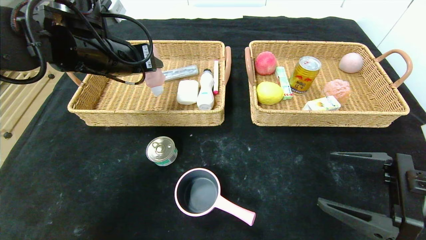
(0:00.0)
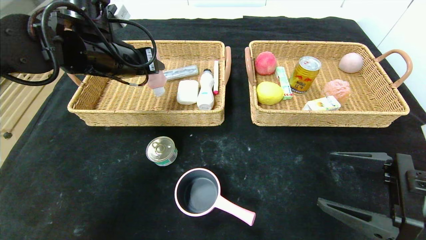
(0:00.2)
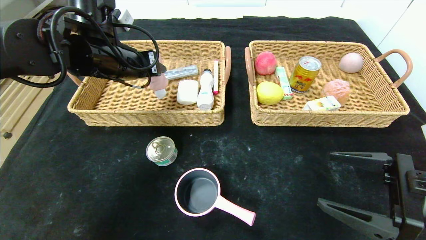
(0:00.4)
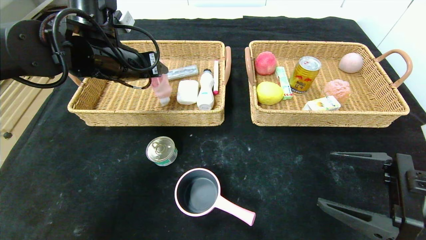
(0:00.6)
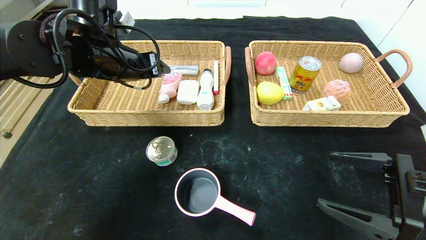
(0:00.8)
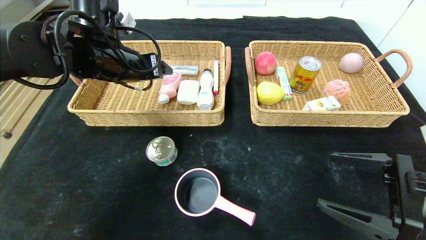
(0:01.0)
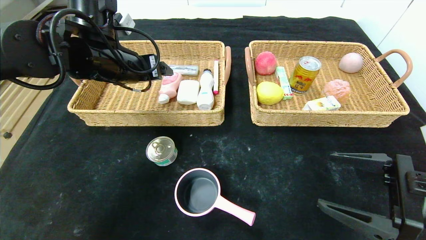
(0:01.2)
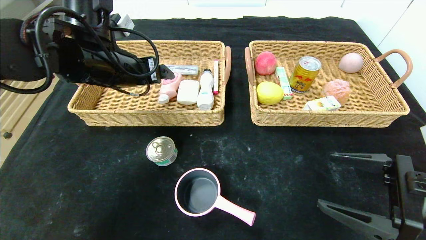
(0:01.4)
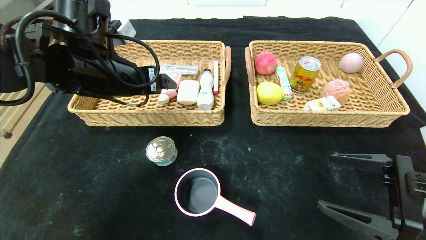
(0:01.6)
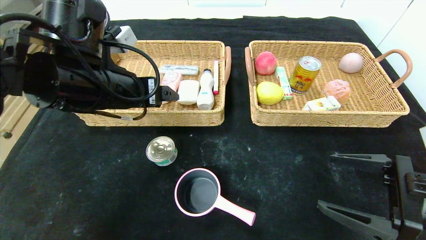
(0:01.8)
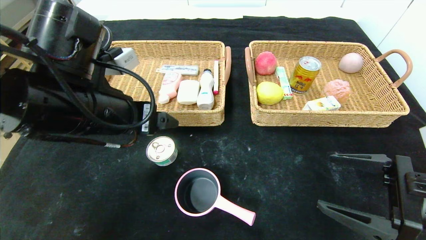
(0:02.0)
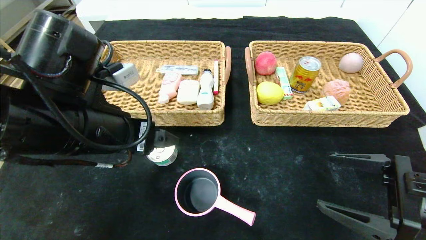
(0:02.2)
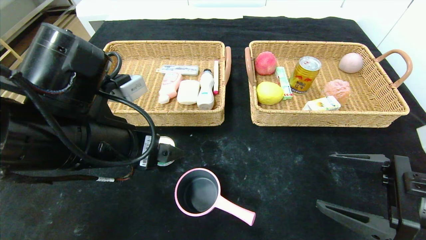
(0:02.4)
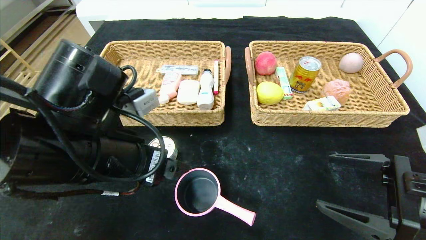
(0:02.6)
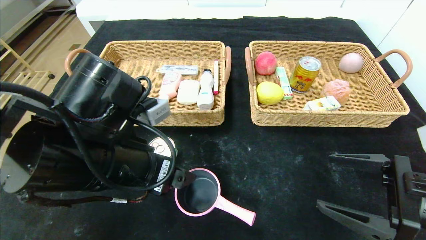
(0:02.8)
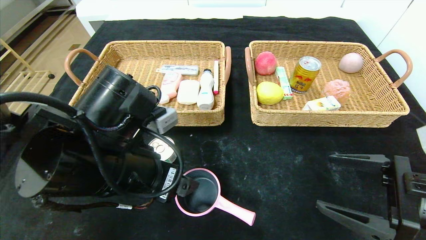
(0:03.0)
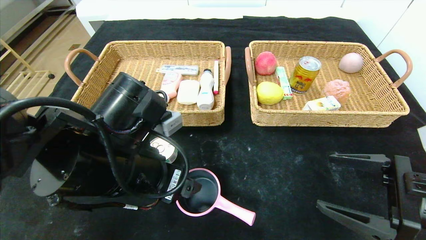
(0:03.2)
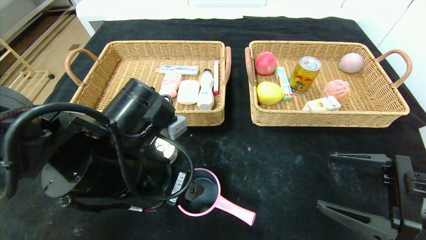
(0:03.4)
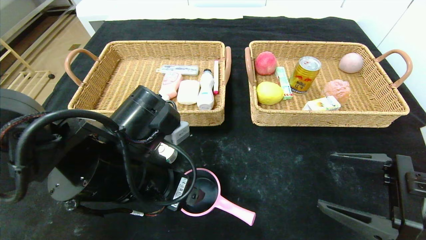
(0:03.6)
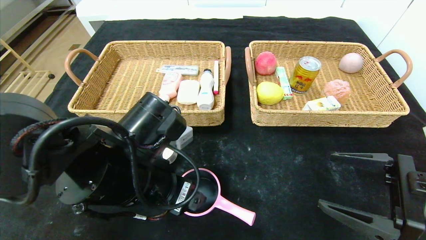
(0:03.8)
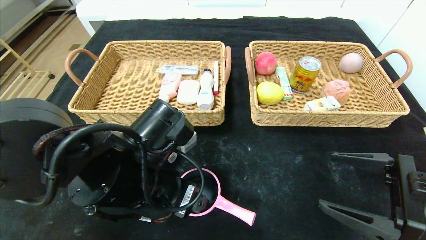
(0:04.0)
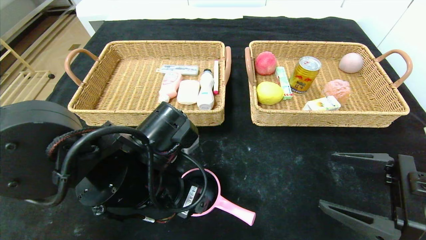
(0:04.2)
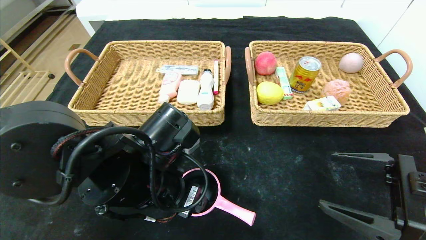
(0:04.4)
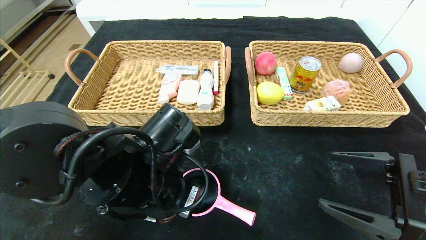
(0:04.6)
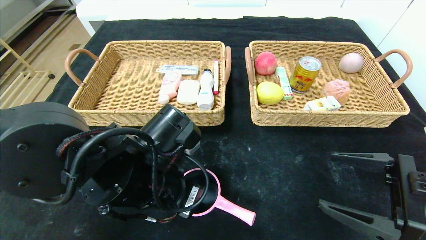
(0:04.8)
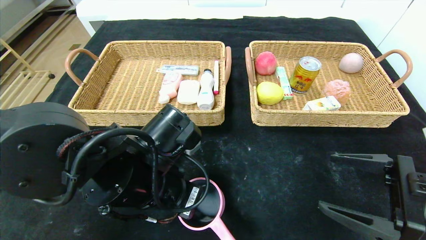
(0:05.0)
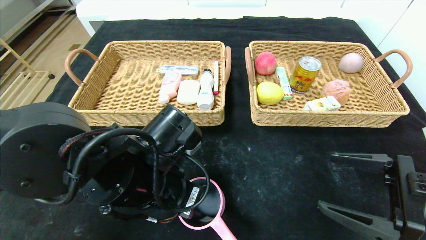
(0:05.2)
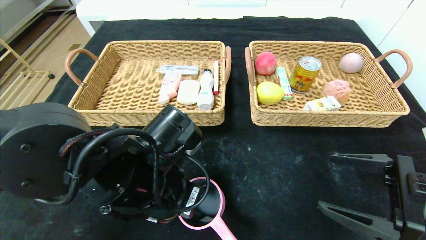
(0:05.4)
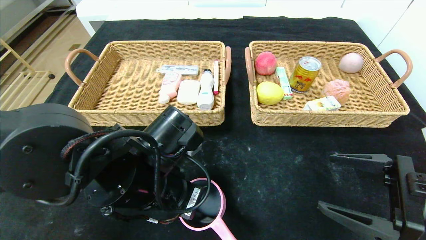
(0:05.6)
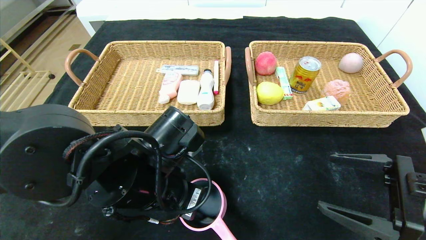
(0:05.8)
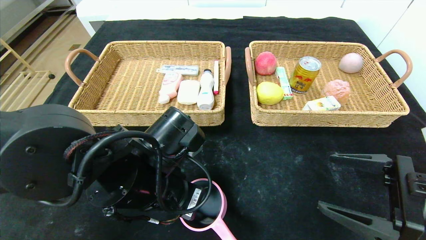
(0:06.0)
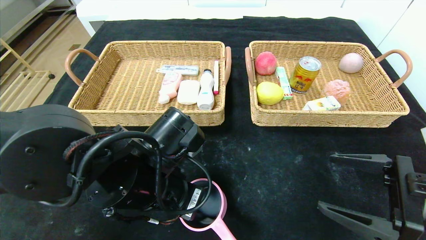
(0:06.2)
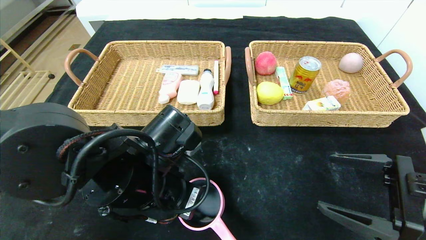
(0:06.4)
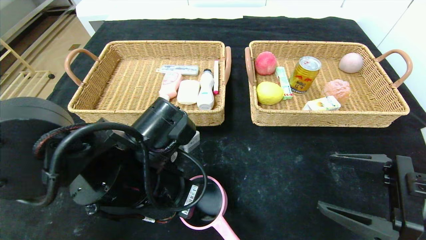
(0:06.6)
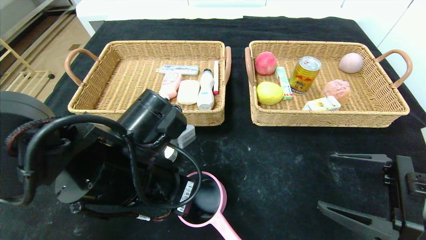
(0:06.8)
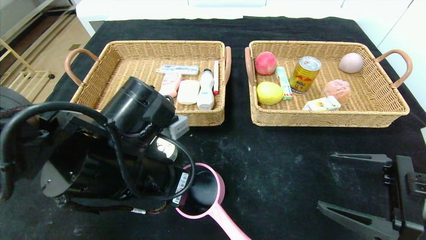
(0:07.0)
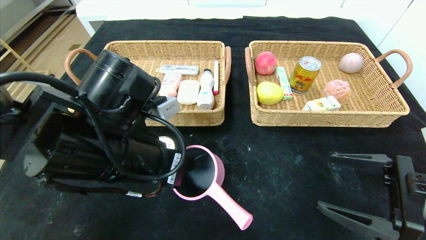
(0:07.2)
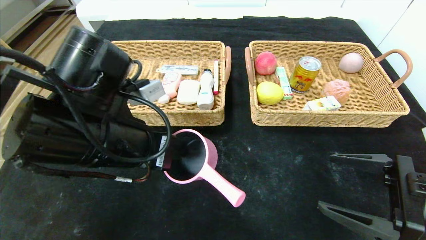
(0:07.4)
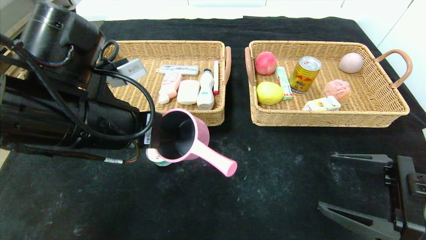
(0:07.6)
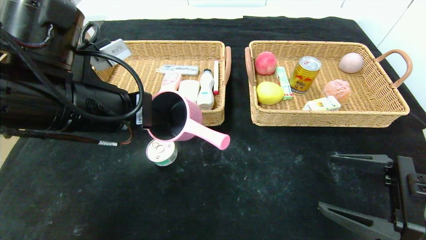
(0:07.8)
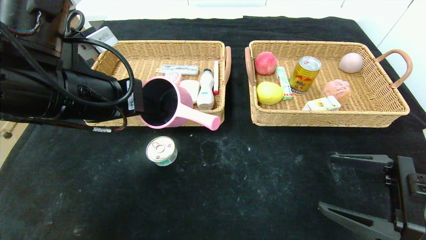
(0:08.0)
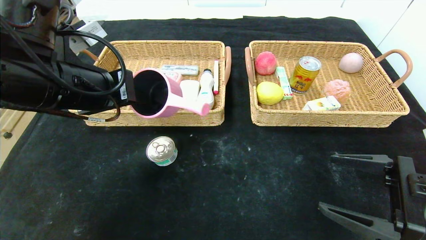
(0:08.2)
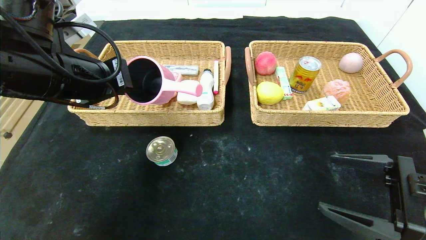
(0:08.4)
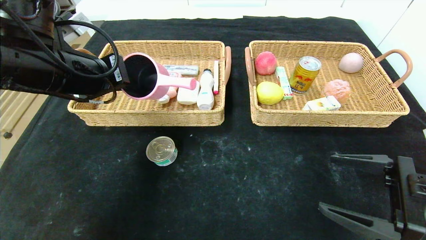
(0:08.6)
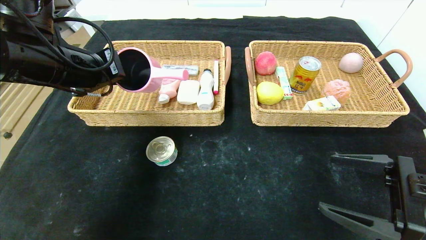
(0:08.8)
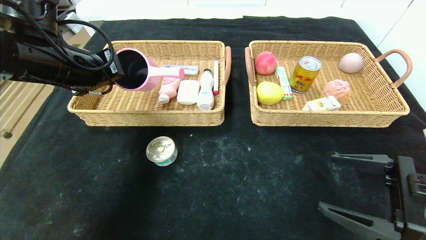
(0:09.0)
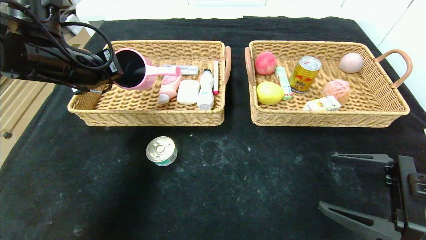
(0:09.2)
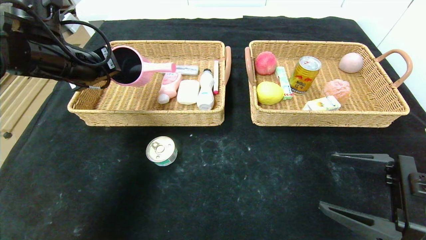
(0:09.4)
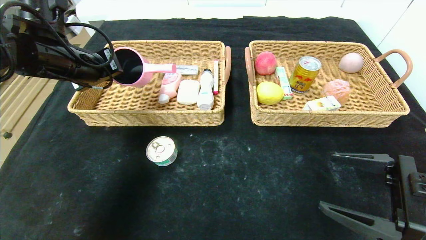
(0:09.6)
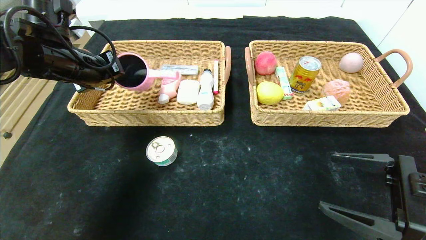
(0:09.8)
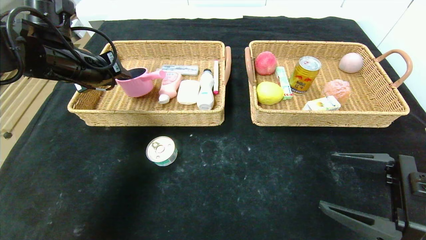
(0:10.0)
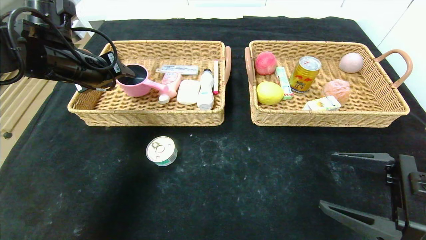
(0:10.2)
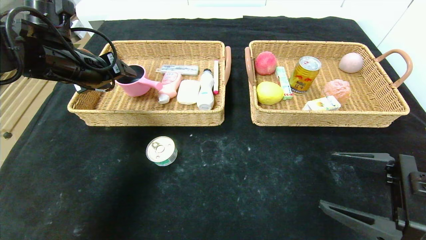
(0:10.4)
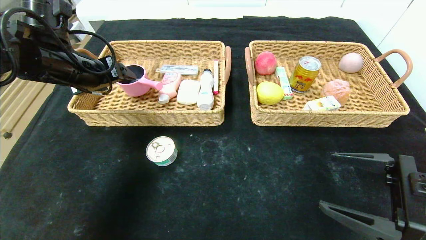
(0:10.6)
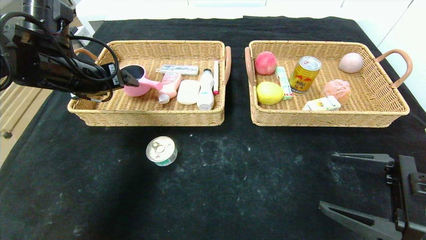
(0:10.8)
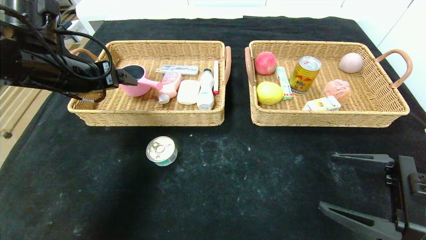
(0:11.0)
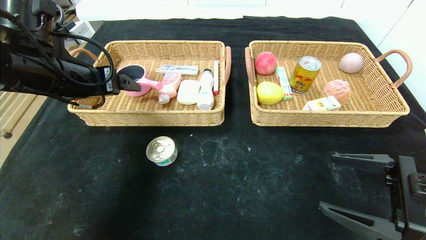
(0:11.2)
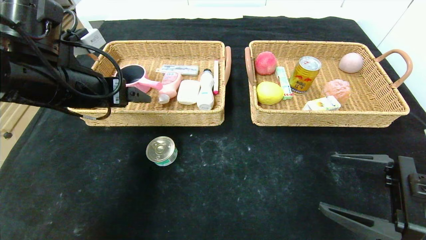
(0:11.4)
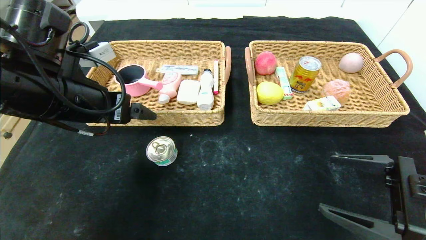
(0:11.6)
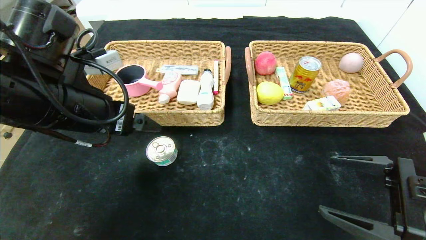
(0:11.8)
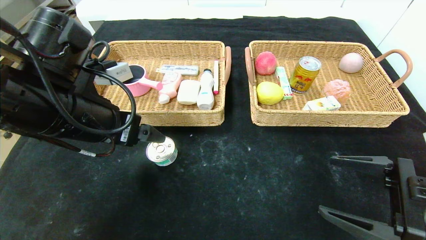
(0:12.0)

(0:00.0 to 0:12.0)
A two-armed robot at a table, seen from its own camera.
Step, 0:00.8 - 0:10.4: Grasp the pink pot and put it in the left basket.
0:00.0 - 0:01.6: The left gripper opens its fingers.
0:01.6 - 0:03.0: The left gripper goes some 15 cm backward and downward.
0:03.0 - 0:04.4: The grippers make only small movements.
0:04.4 - 0:06.0: The left gripper closes.
0:06.0 - 0:07.6: The left gripper heads upward and to the left, covering approximately 10 cm.
0:07.6 - 0:09.0: The left gripper travels forward and to the left by approximately 10 cm.
0:09.0 - 0:10.4: The left gripper opens up.
0:10.4 - 0:12.0: The left gripper goes approximately 15 cm backward and to the right.

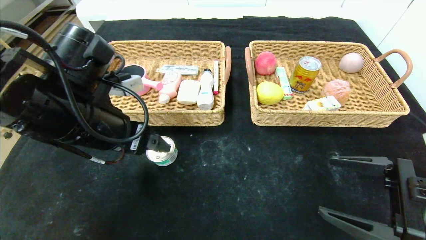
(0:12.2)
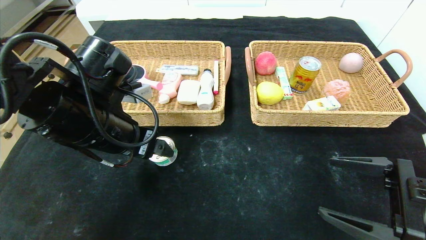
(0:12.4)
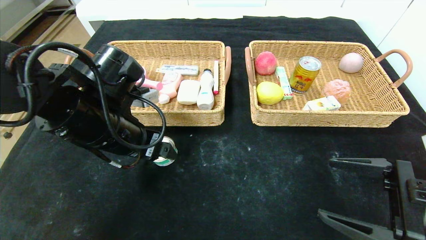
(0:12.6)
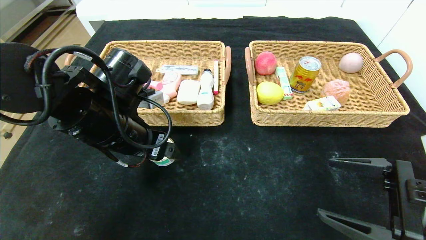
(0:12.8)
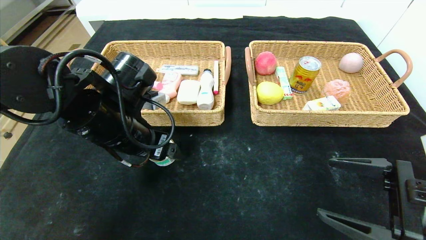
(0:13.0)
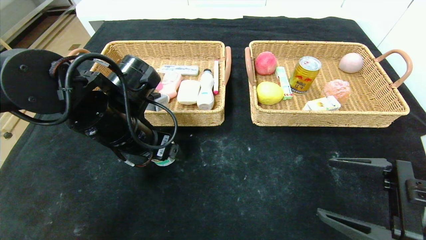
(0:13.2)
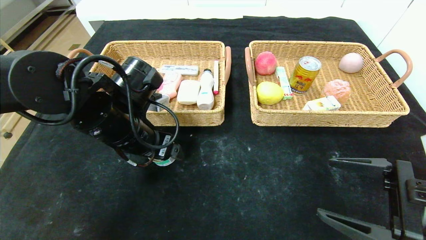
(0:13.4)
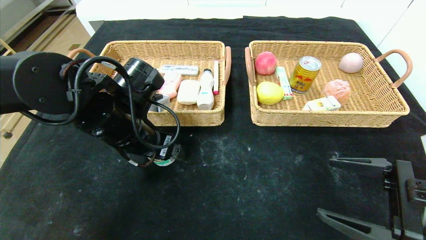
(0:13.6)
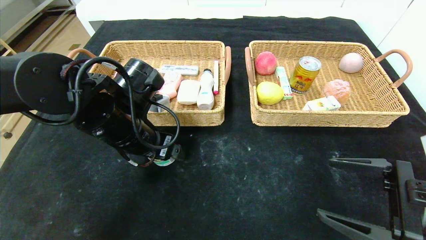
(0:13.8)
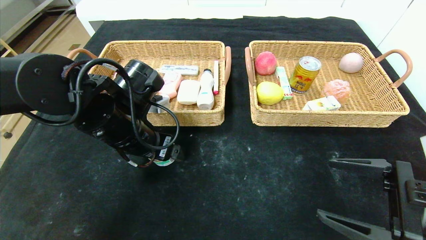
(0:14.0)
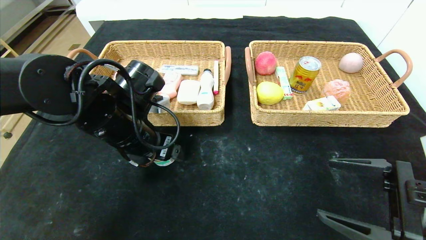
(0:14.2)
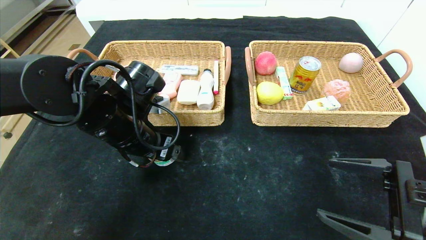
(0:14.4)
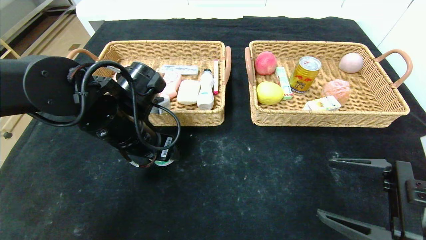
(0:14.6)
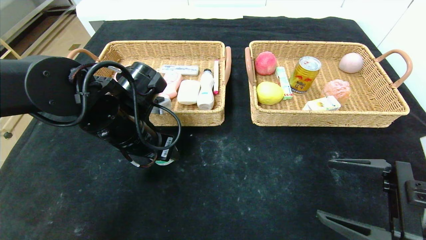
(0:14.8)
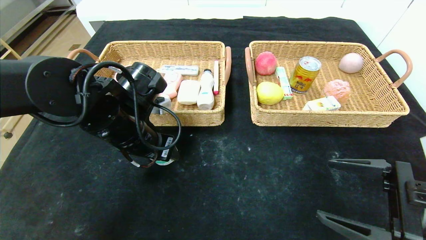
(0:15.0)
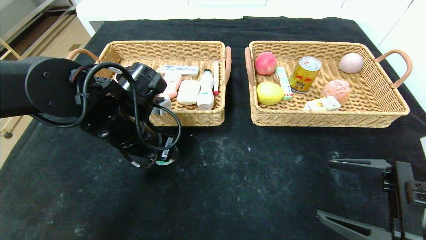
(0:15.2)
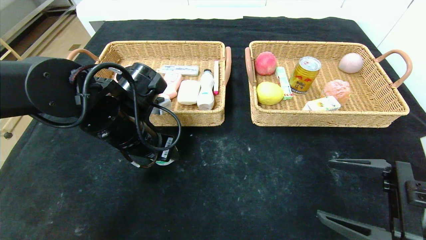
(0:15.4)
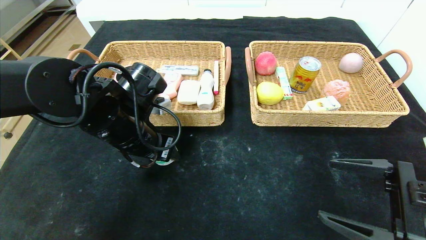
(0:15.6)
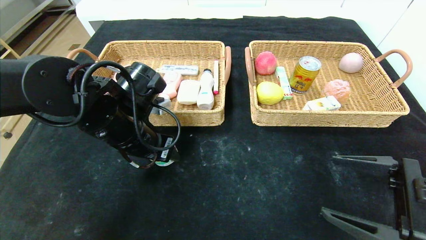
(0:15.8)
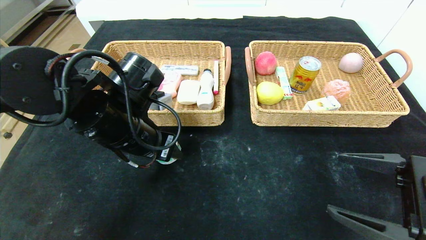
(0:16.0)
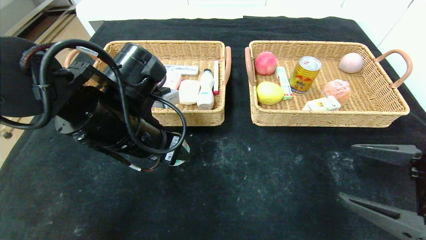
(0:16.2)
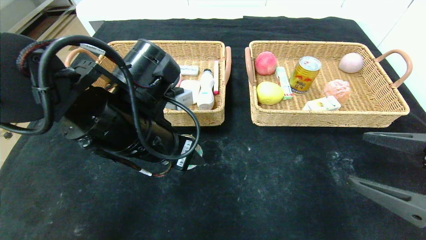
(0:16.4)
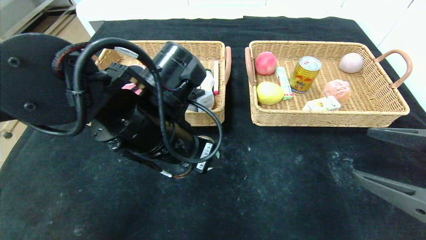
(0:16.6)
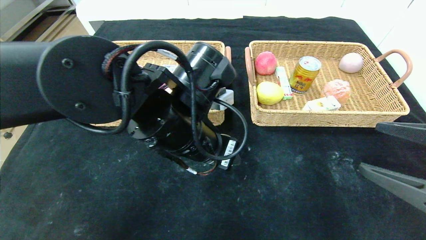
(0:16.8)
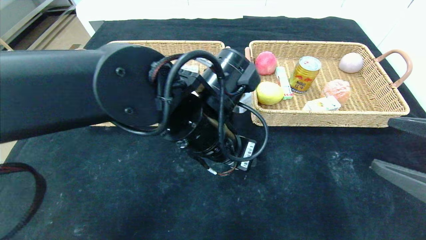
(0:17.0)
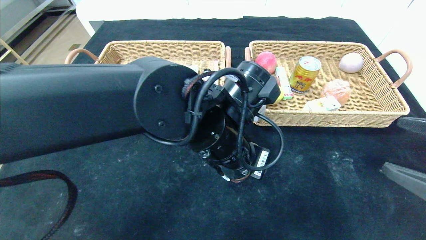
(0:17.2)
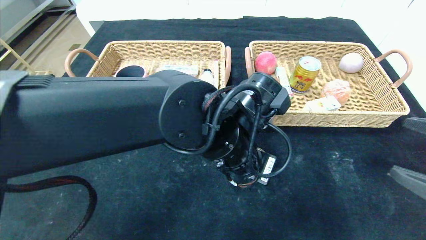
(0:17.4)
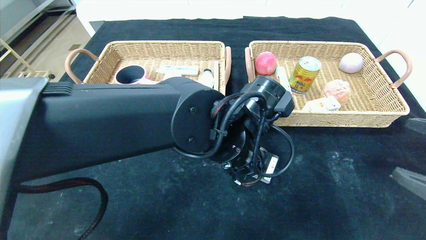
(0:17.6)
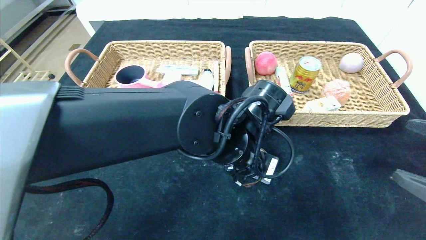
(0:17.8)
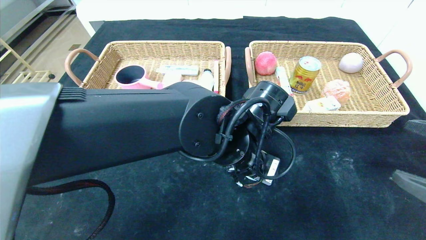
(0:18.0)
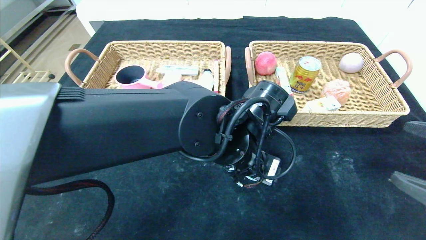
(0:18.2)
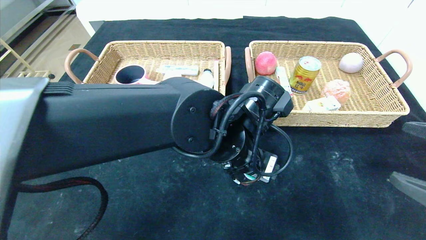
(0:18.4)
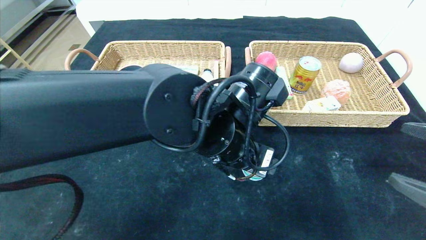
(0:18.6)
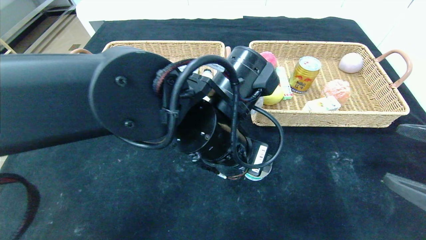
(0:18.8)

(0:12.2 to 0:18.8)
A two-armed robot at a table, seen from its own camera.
Step, 0:12.2 - 0:18.2: Place the can in the center of the table.
0:12.2 - 0:13.8: The left gripper shifts by approximately 5 cm.
0:13.8 - 0:15.4: The left gripper closes its fingers.
0:15.4 - 0:17.2: The right gripper heads upward, covering roughly 5 cm. The left gripper goes roughly 15 cm to the right.
0:17.2 - 0:18.8: The grippers stay close to where they were, moving slightly.
